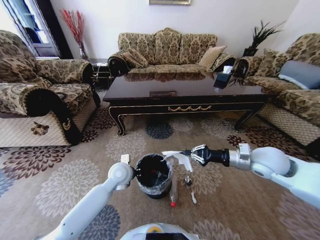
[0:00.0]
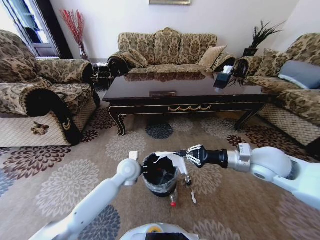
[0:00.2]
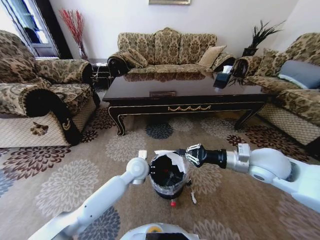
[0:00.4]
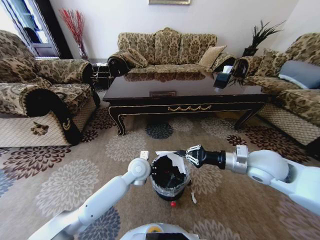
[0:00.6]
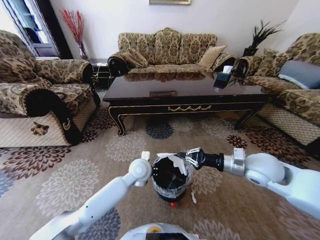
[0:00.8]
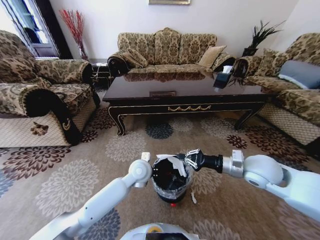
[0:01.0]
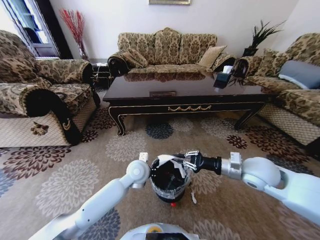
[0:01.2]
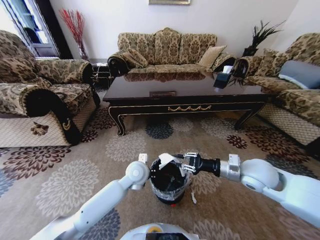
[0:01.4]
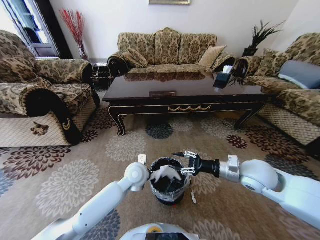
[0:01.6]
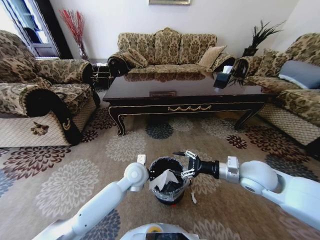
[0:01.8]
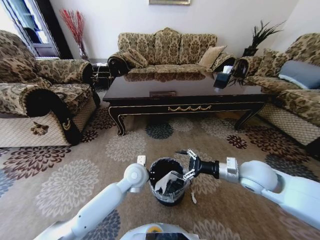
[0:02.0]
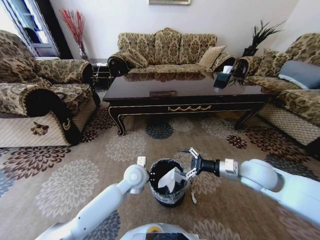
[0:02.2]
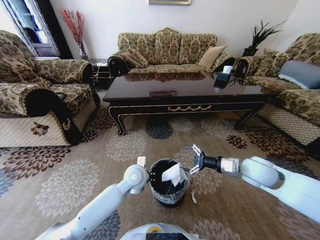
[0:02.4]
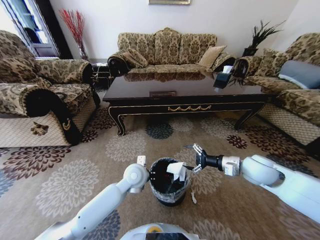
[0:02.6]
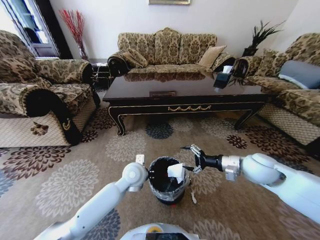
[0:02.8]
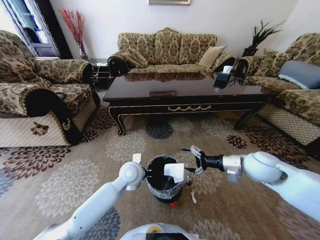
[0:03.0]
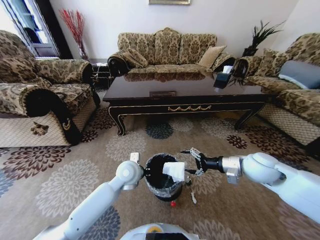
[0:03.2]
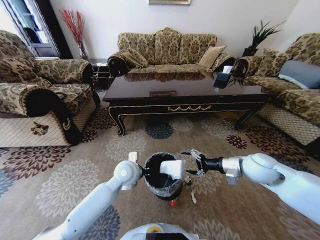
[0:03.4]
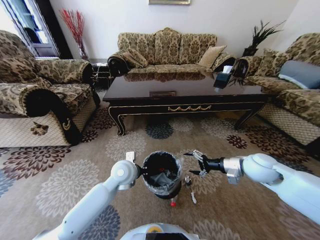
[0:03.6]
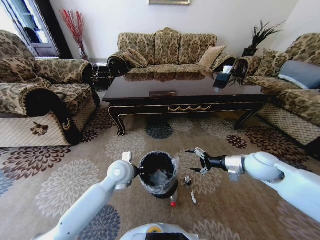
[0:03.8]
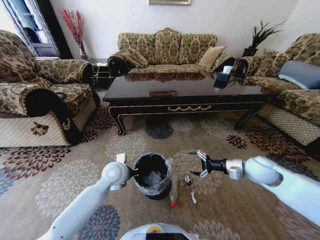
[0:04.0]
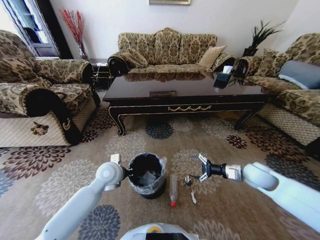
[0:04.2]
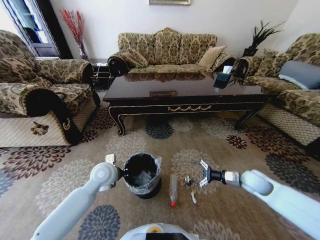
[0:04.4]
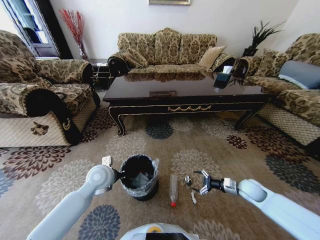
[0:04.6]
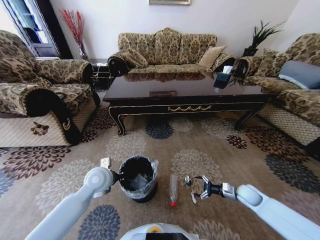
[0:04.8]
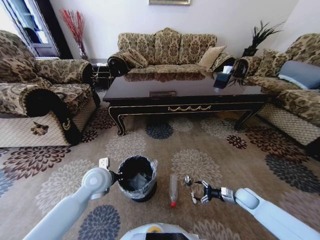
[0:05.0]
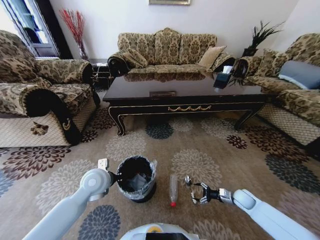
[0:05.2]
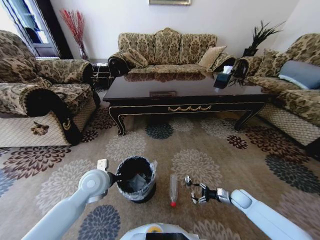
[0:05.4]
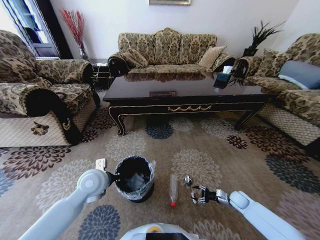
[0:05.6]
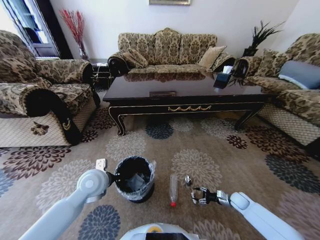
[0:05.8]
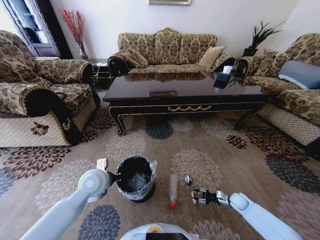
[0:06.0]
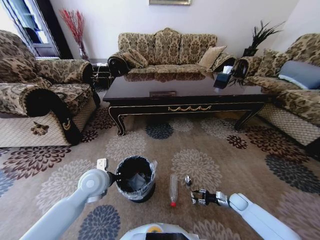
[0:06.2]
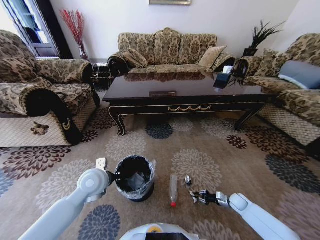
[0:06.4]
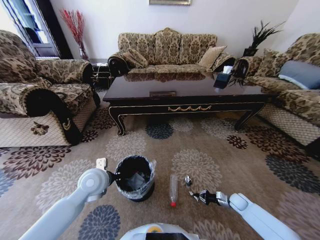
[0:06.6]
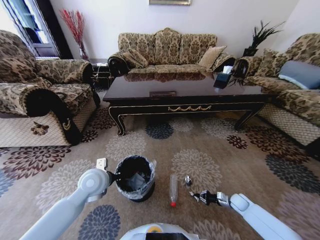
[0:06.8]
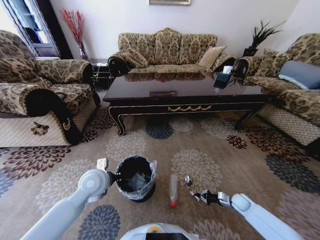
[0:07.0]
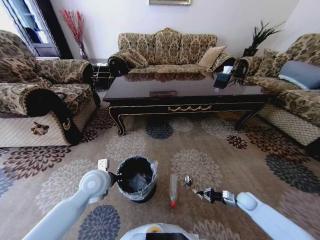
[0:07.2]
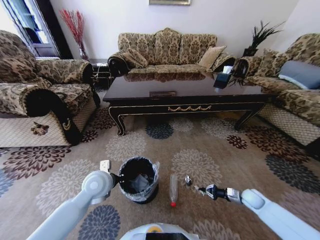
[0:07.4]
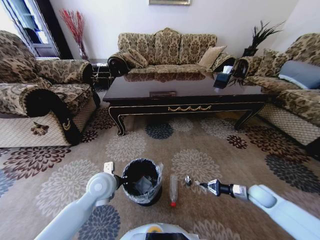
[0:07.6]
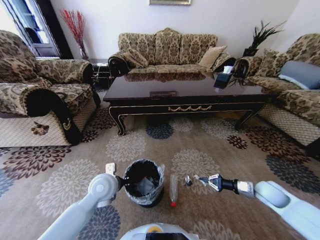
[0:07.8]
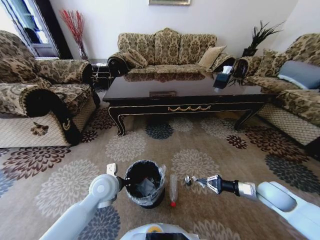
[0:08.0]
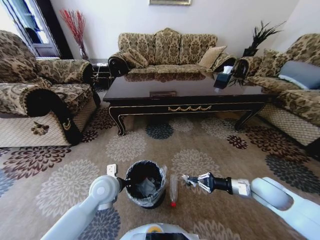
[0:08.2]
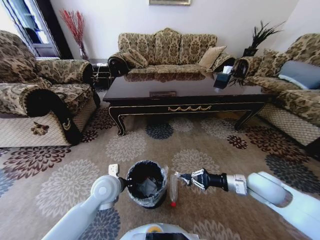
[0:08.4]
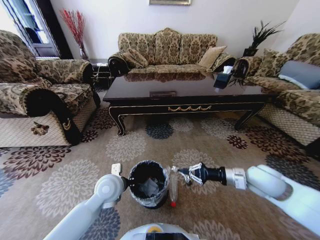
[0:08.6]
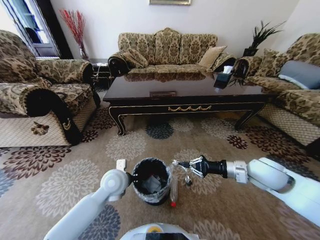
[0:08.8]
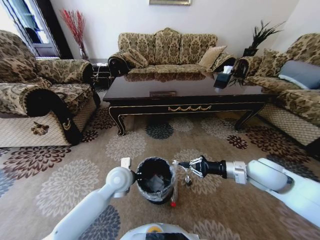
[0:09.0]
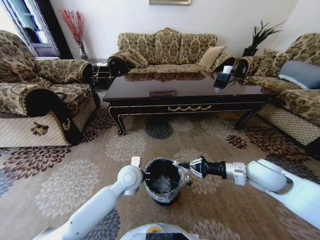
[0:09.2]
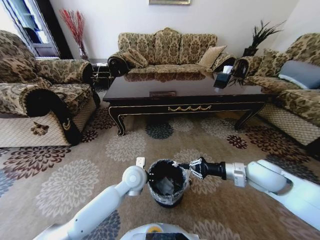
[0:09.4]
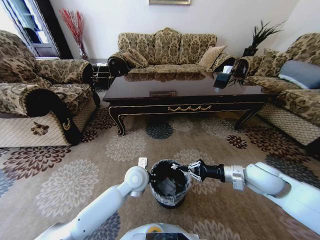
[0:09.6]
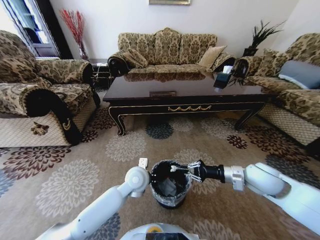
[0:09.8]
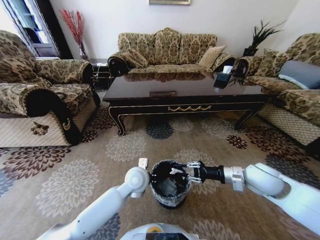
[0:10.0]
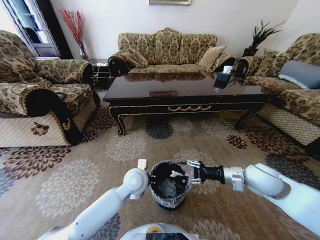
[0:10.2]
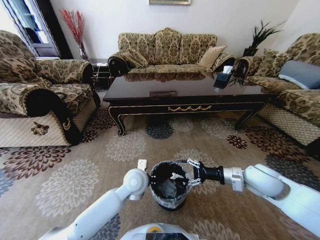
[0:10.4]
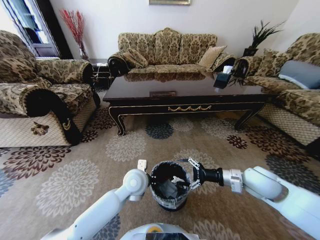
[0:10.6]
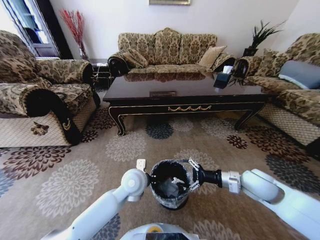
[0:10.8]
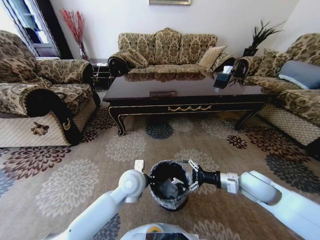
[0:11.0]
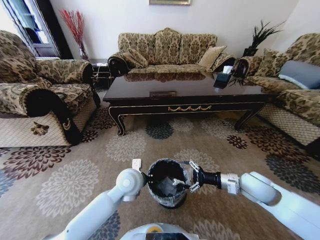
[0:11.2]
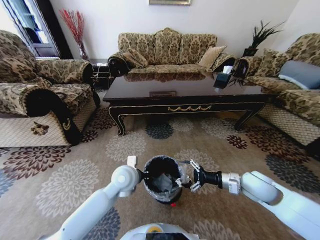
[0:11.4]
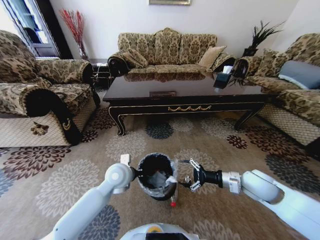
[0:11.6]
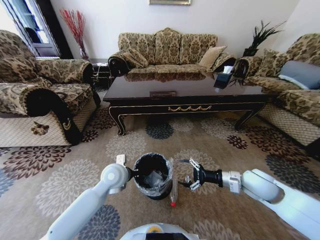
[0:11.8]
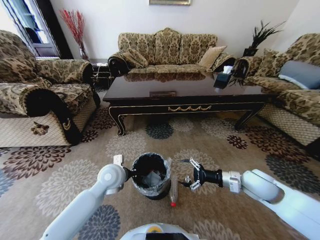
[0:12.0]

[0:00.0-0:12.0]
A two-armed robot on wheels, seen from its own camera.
Task of the whole recording: Move to the front of the table and pick up the trash from the floor, then place it into the trash bin.
0:00.0 to 0:01.6: The right gripper ends up approximately 5 cm from where it was, and opens up, while the left gripper moves to the right, about 5 cm.
0:01.6 to 0:03.0: The right gripper opens.
0:03.0 to 0:04.4: The right gripper goes approximately 15 cm downward and to the right, while the left gripper heads to the left, covering roughly 10 cm.
0:04.4 to 0:06.0: The right gripper heads downward, covering approximately 20 cm, and closes.
0:06.0 to 0:07.6: The right gripper travels upward by roughly 15 cm, and closes up.
0:07.6 to 0:09.0: The left gripper travels to the right by approximately 5 cm. Meanwhile the right gripper shifts some 25 cm upward and to the left.
0:09.0 to 0:10.4: The right gripper opens. The left gripper travels to the right by approximately 5 cm.
0:10.4 to 0:12.0: The left gripper heads to the left, covering roughly 10 cm.

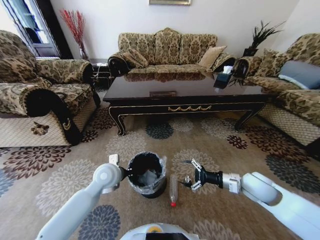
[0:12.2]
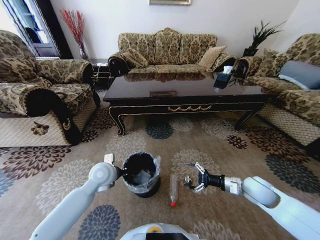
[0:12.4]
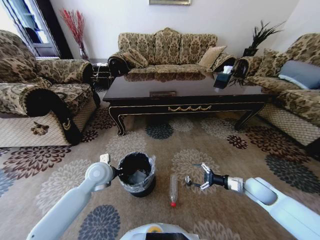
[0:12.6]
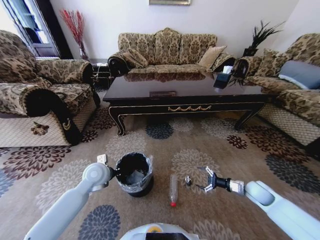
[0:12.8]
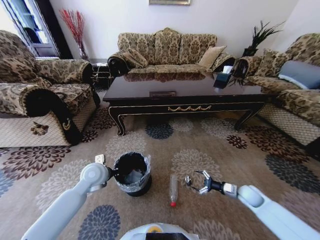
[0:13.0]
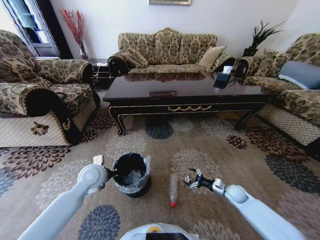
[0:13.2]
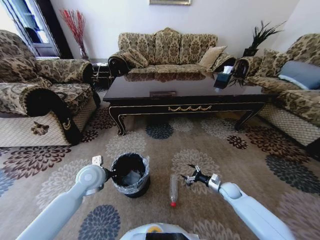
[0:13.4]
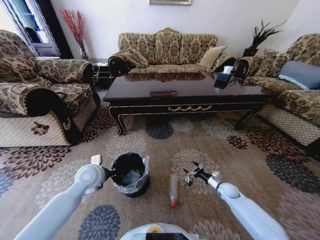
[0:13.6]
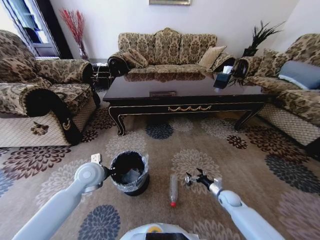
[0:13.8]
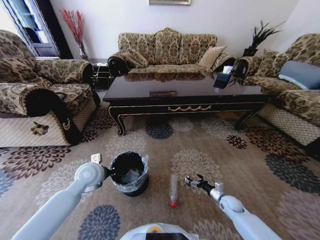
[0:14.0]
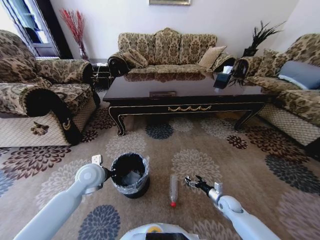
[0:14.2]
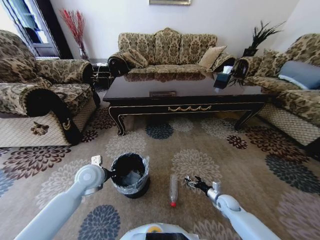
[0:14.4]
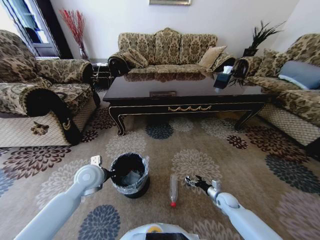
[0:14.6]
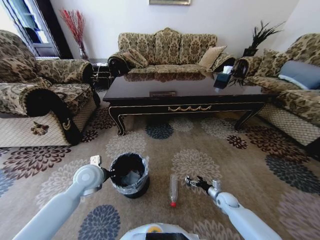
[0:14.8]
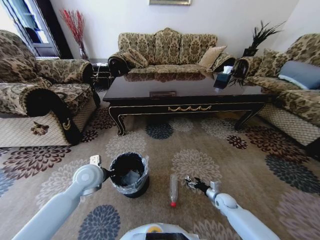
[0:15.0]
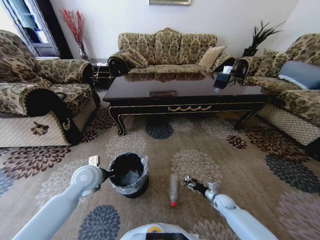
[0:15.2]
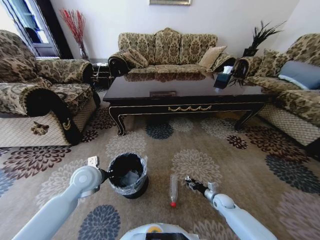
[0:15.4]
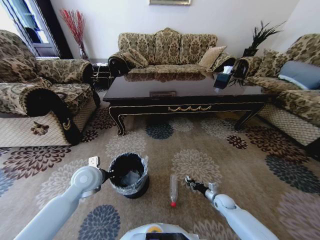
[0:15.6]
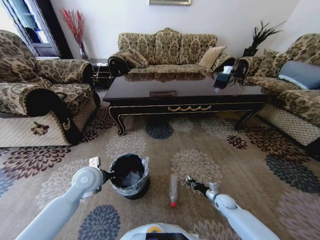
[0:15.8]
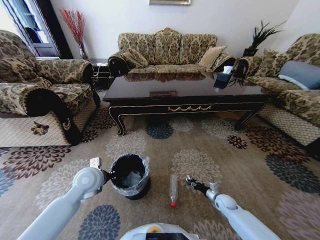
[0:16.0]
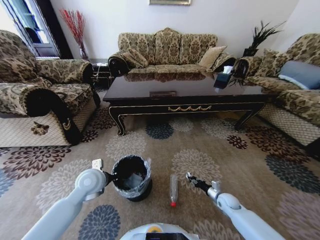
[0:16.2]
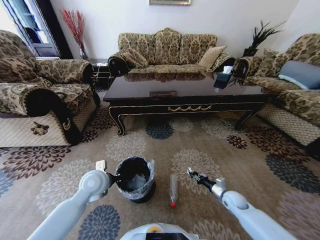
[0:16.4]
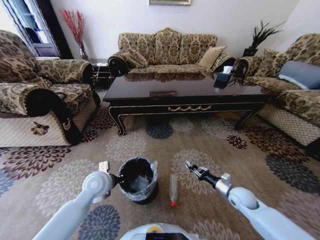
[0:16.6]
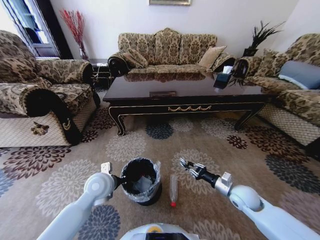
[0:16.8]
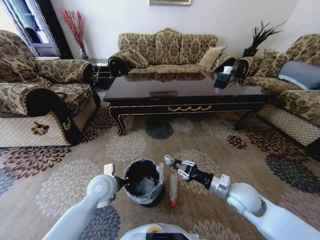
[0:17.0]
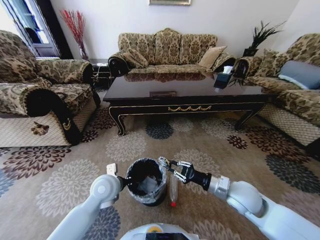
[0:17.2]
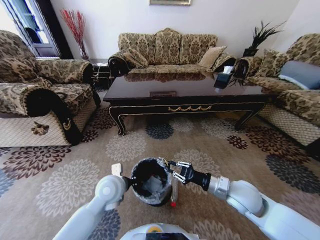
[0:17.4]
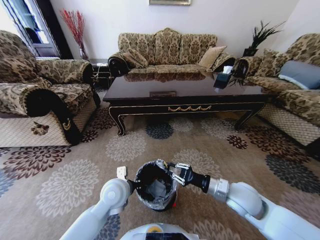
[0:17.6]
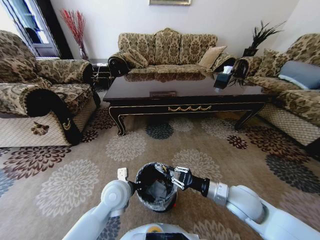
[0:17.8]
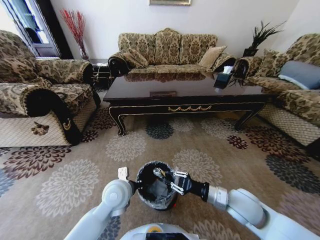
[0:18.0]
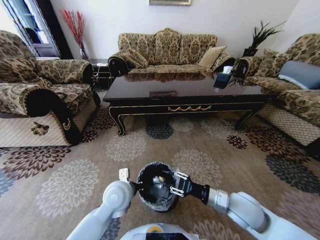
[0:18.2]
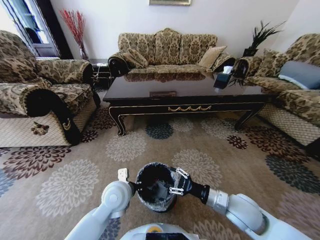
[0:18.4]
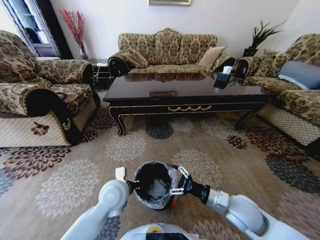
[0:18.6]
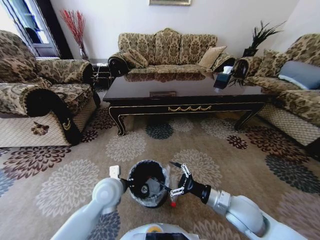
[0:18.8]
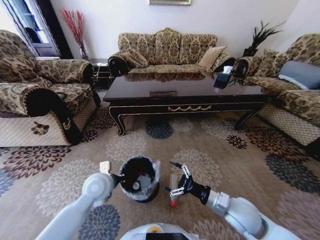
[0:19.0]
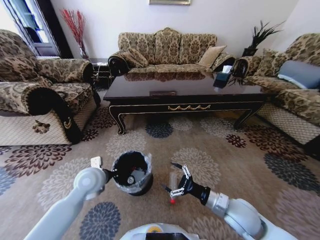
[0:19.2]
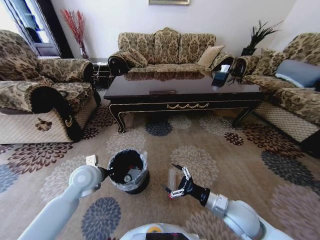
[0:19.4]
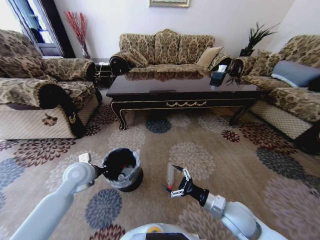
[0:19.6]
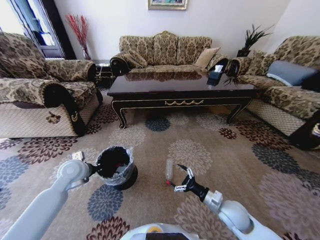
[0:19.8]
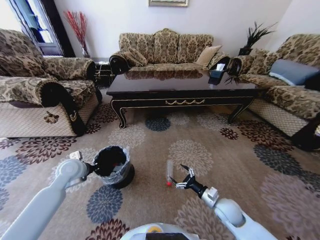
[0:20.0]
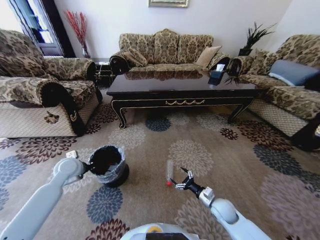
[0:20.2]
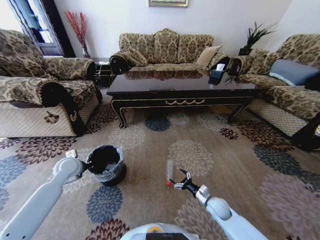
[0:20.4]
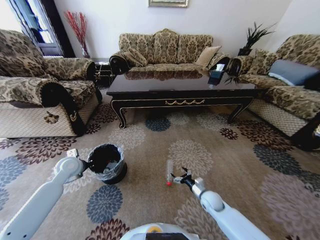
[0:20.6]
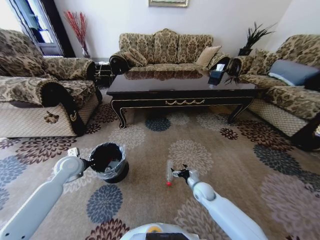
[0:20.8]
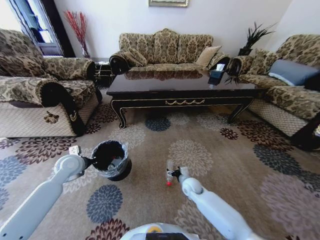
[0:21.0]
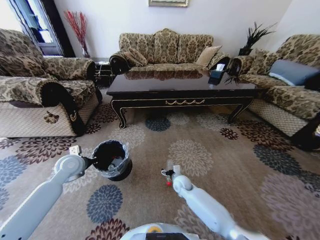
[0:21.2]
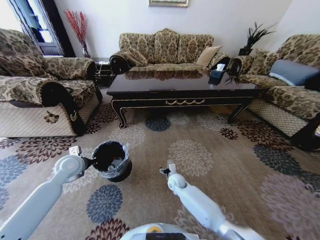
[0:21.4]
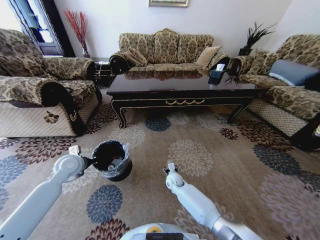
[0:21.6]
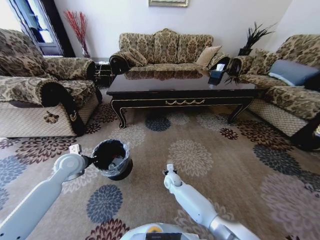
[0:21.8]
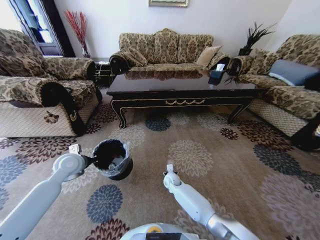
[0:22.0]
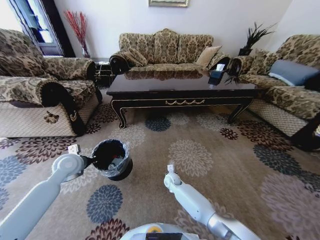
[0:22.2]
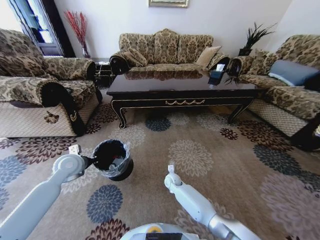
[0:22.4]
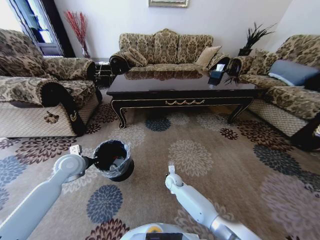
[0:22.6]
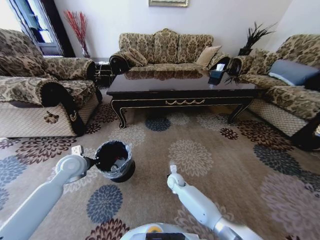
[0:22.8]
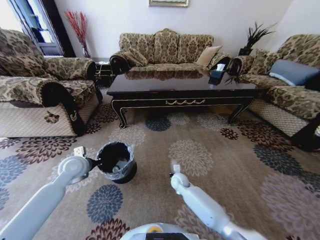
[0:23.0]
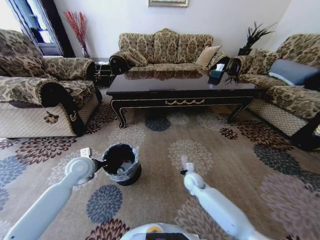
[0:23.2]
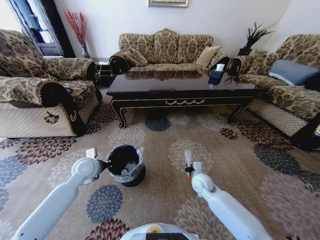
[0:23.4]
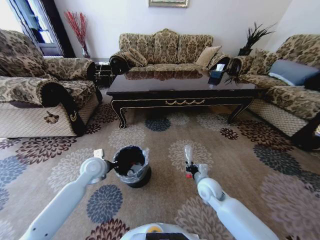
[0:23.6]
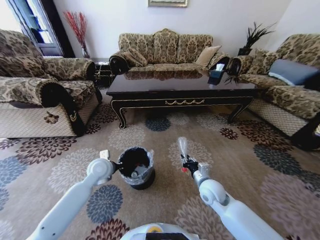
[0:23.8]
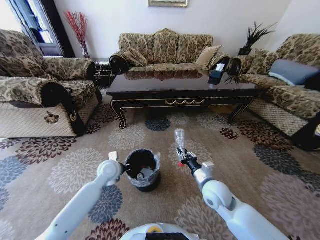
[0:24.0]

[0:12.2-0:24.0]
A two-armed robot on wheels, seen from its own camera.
Task of the whole recording: Move to the front of the table and pick up the trash from the floor, then place it into the trash bin.
0:12.2 to 0:13.6: The right gripper is displaced downward by about 25 cm. Meanwhile the left gripper heads to the left, covering some 5 cm.
0:13.6 to 0:15.2: The right gripper heads downward, covering some 5 cm.
0:15.2 to 0:16.6: The right gripper goes some 15 cm upward, and closes its fingers.
0:16.6 to 0:18.2: The right gripper goes some 20 cm upward, to the left and backward. The left gripper travels to the right by roughly 10 cm.
0:18.2 to 0:19.6: The left gripper is displaced to the left and forward by some 15 cm; the right gripper goes about 5 cm downward, and opens its fingers.
0:19.6 to 0:21.0: The right gripper moves forward, downward and to the left, some 20 cm; the left gripper travels to the left by some 5 cm.
0:21.0 to 0:22.6: The right gripper shifts about 10 cm to the left, and closes its fingers.
0:22.6 to 0:24.0: The left gripper goes approximately 15 cm to the right, while the right gripper goes approximately 25 cm upward, backward and to the right.
